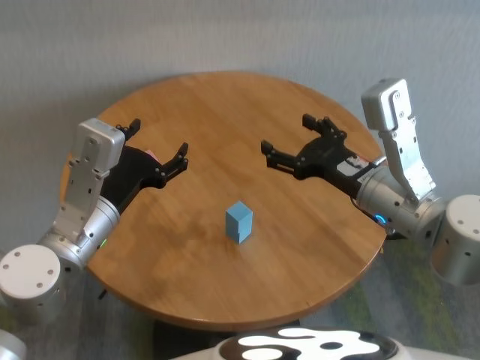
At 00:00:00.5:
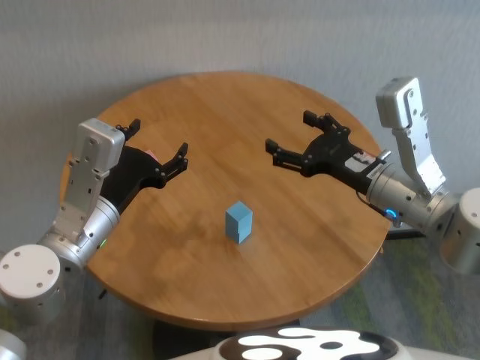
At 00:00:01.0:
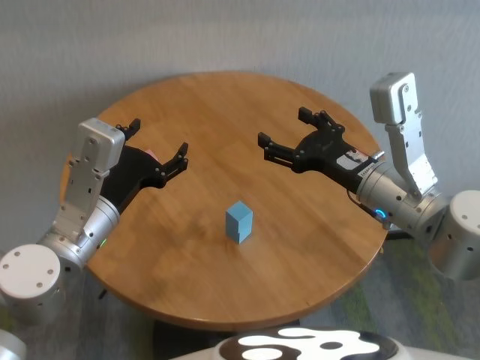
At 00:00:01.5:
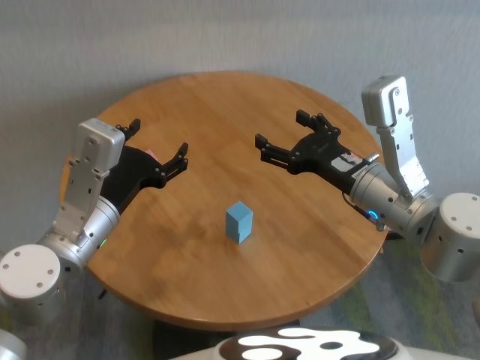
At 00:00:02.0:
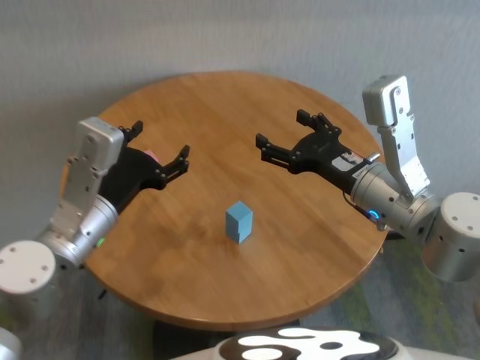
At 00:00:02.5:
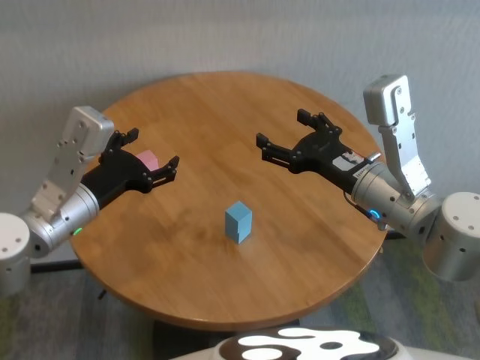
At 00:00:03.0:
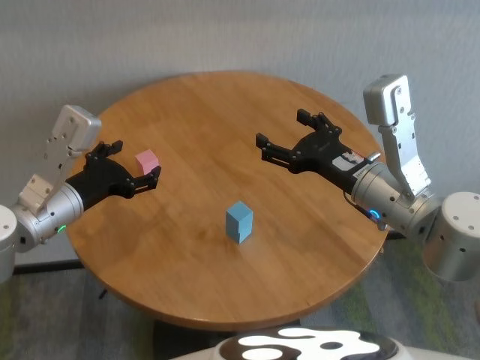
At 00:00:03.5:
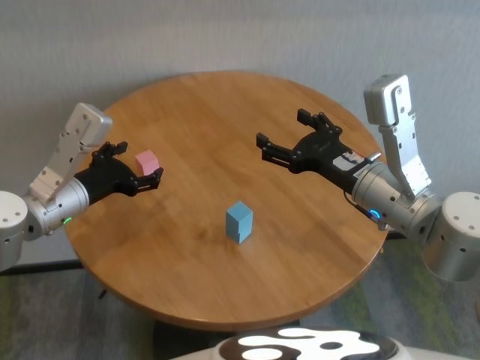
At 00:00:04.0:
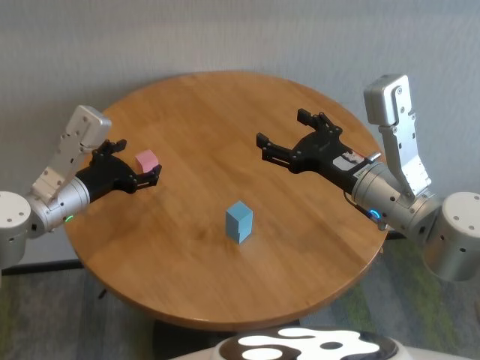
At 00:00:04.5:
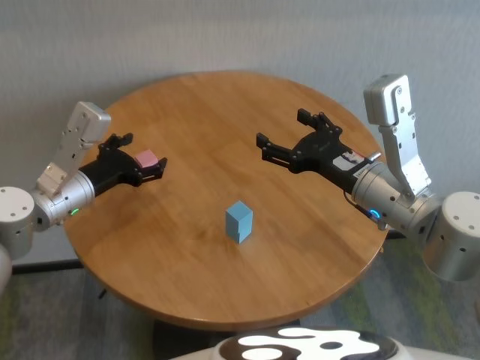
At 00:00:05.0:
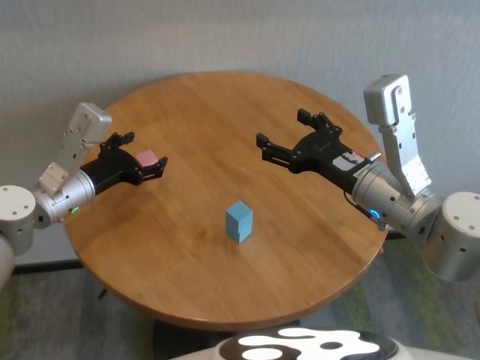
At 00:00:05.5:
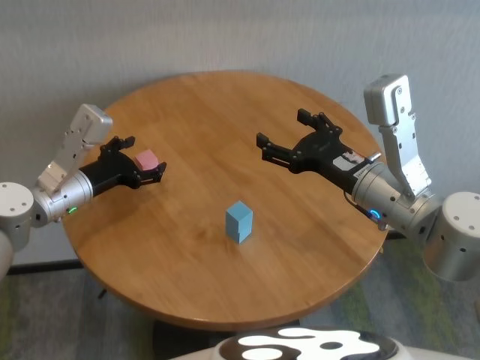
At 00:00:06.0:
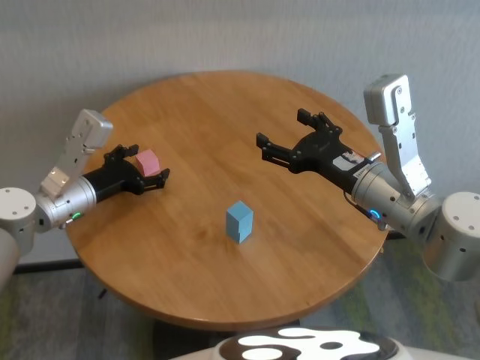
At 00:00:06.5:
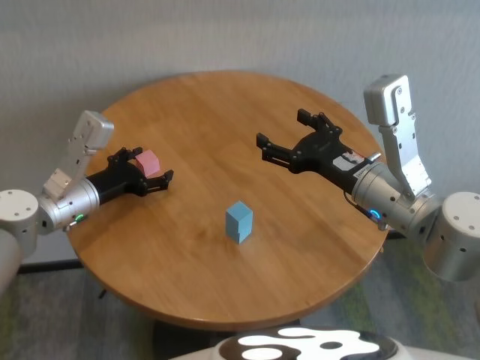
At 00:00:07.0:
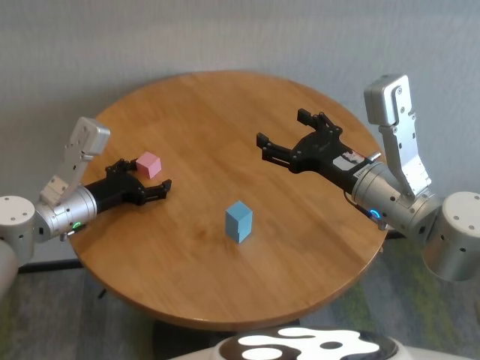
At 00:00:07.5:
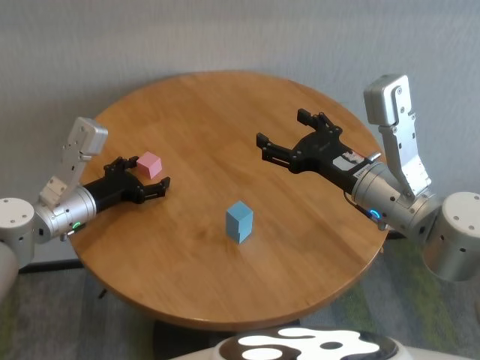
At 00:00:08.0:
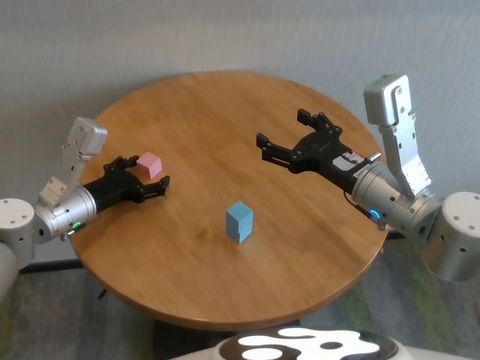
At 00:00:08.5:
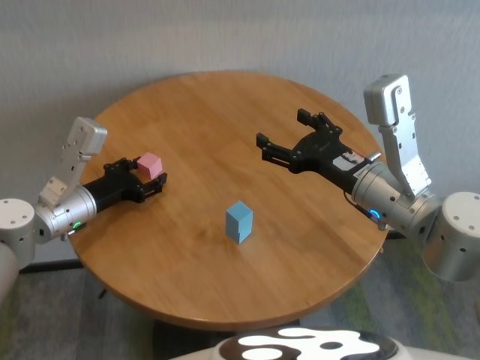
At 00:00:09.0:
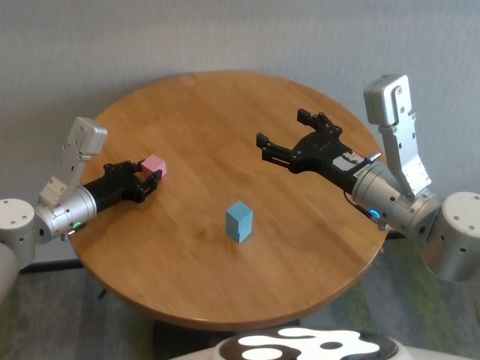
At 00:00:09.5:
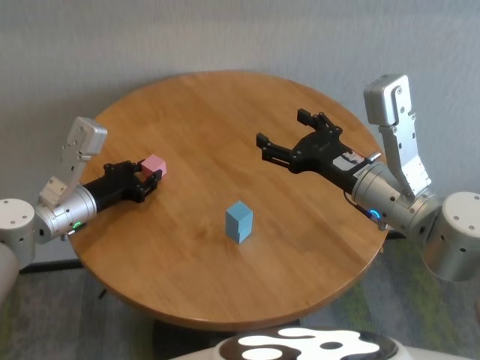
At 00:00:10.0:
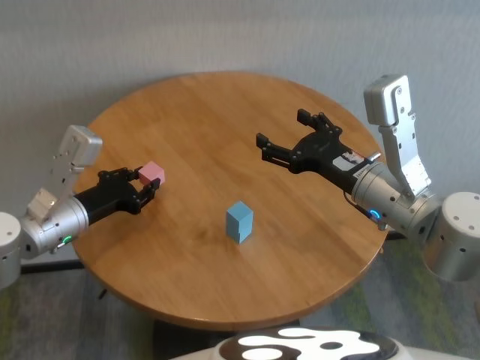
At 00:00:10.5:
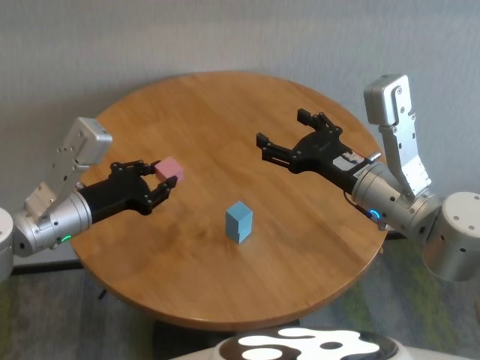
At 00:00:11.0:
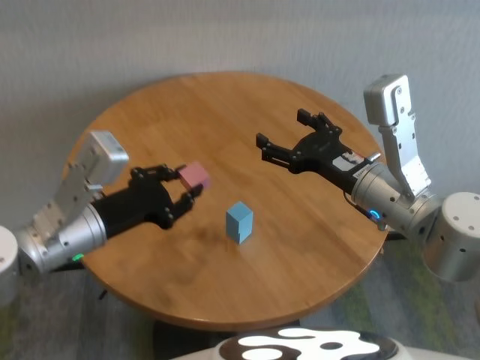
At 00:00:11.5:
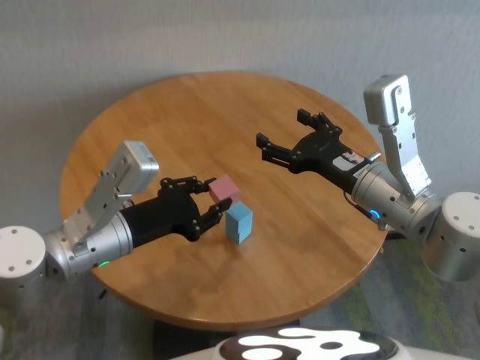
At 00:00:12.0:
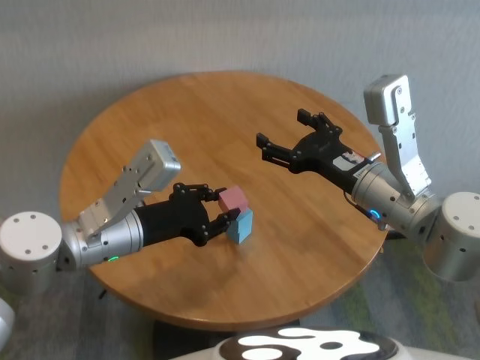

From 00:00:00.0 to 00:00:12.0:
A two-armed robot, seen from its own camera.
Task of the whole recording: stack building blocks on the table.
Step, from 00:00:00.0 to 00:00:08.5: Grasp the pink building block with left gripper.

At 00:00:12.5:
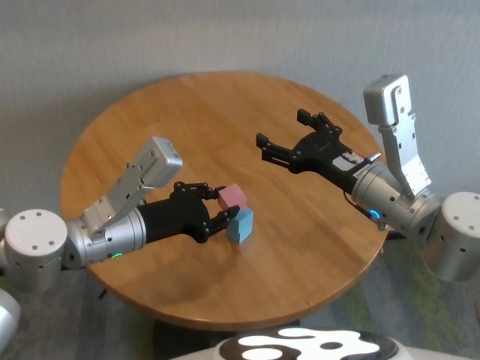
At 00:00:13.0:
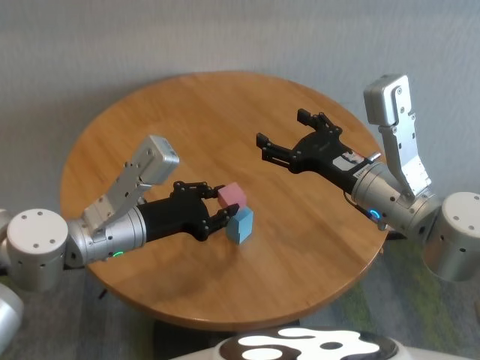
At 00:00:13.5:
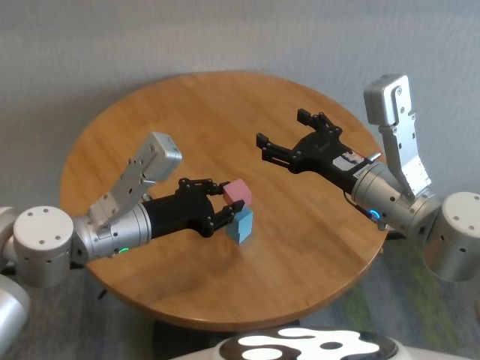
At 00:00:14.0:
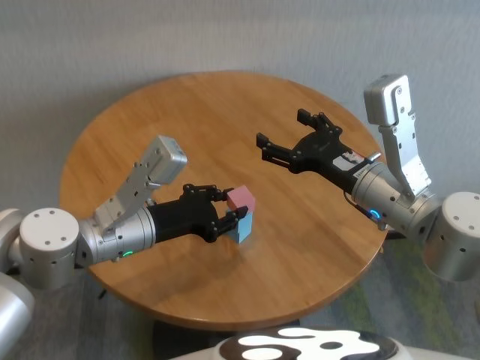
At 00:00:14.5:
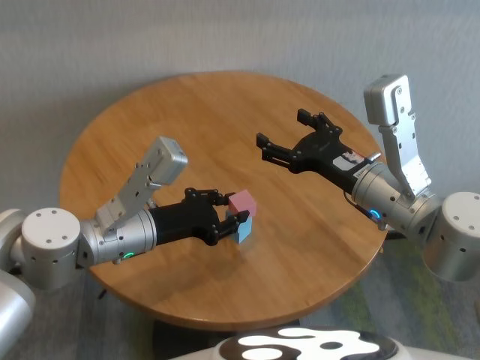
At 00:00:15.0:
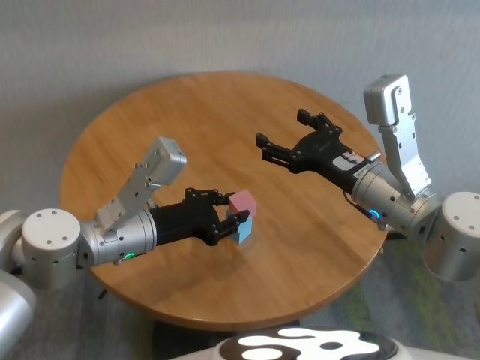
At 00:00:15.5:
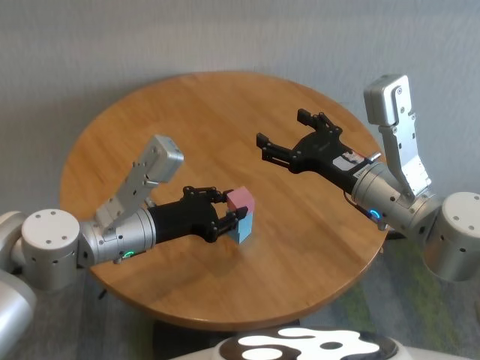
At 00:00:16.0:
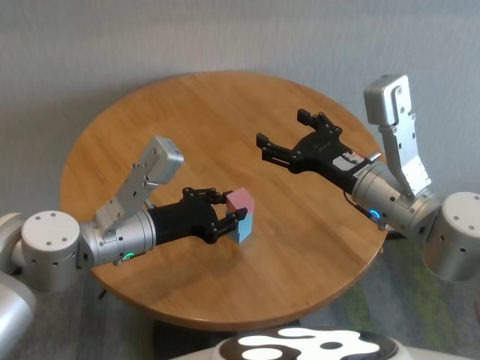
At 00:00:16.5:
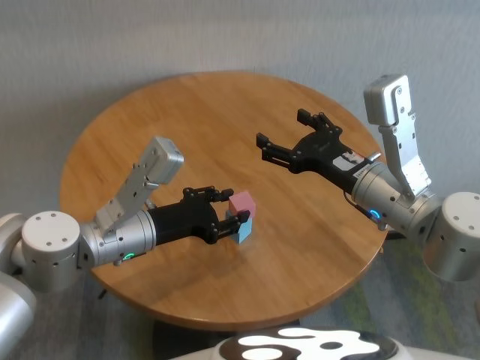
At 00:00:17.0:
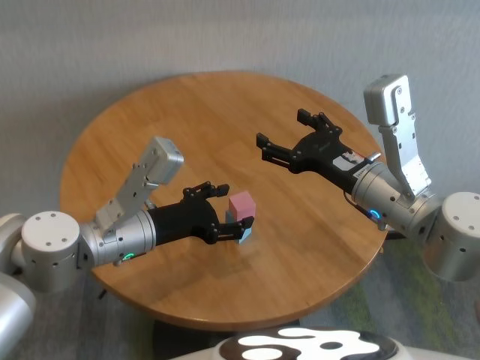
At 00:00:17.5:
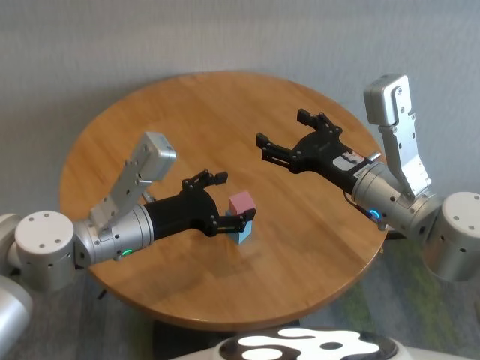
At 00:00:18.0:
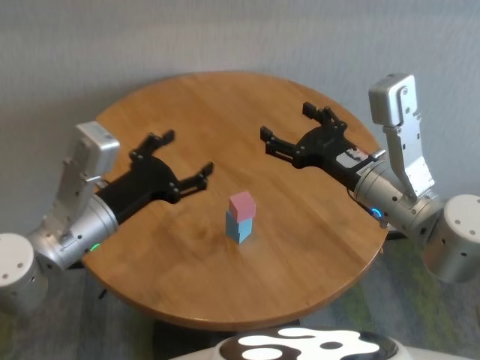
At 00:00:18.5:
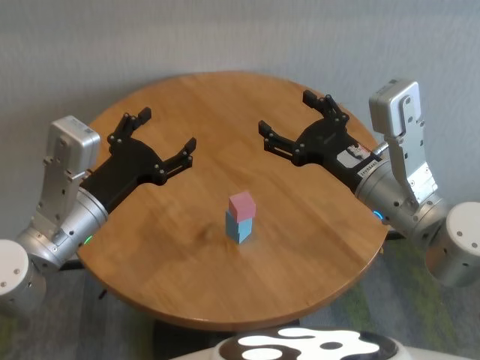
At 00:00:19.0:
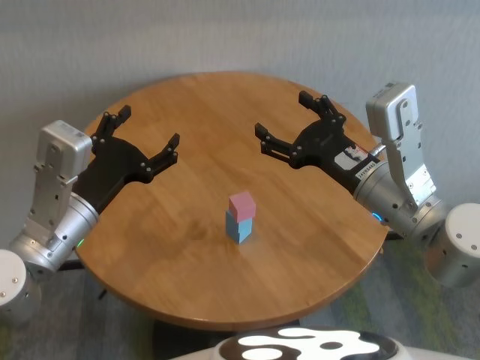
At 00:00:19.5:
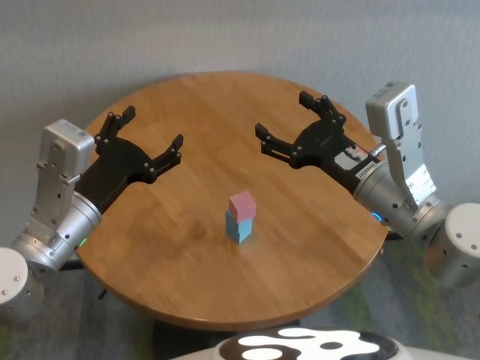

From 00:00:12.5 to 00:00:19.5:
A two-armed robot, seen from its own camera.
Task of the whole recording: stack building blocks on the table.
Step, from 00:00:12.5 to 00:00:16.5: Place the pink building block on the blue building blocks with left gripper.
